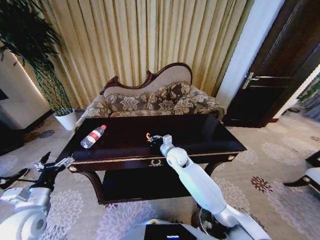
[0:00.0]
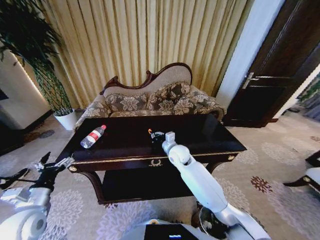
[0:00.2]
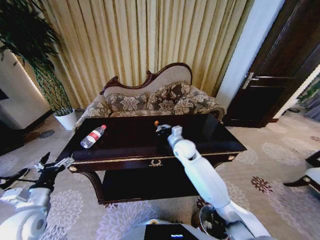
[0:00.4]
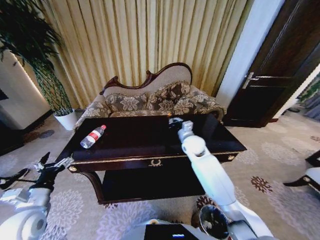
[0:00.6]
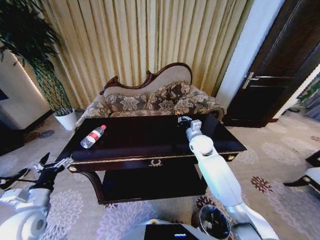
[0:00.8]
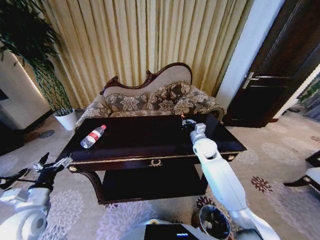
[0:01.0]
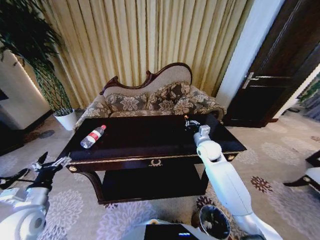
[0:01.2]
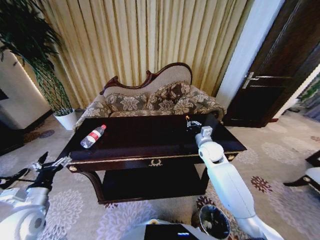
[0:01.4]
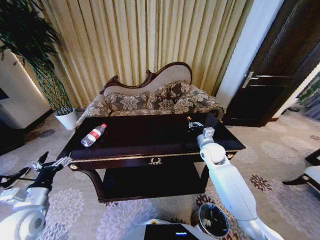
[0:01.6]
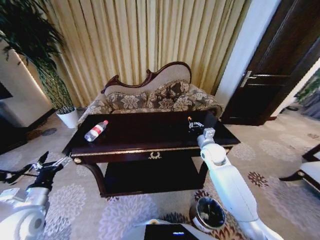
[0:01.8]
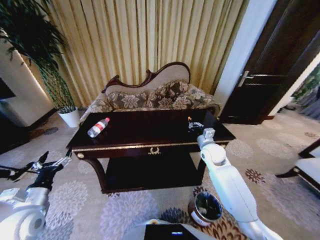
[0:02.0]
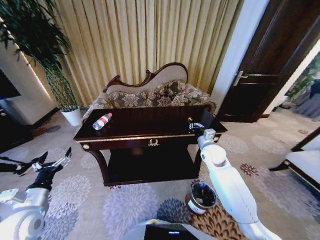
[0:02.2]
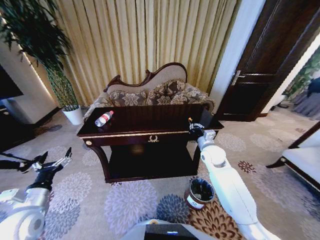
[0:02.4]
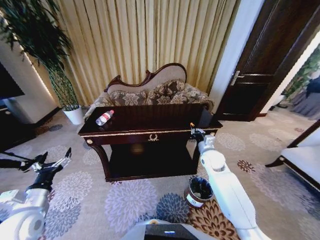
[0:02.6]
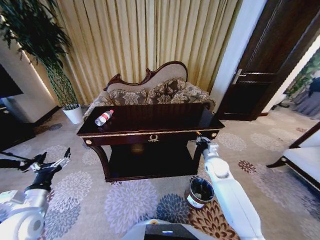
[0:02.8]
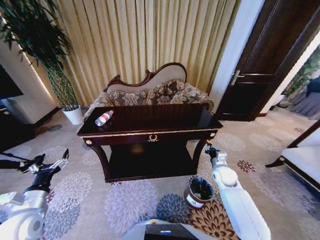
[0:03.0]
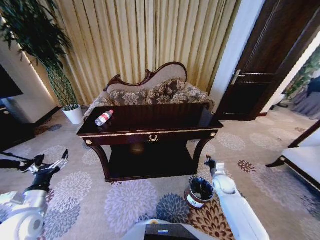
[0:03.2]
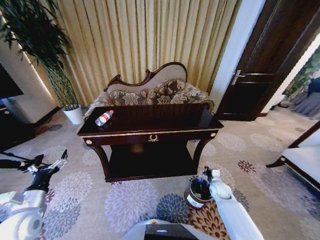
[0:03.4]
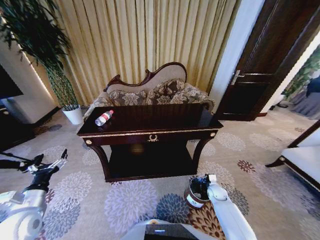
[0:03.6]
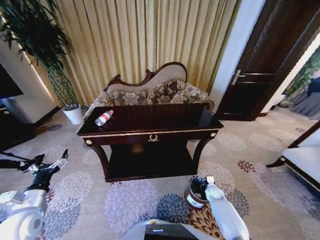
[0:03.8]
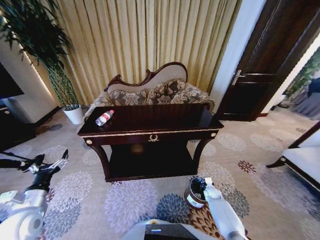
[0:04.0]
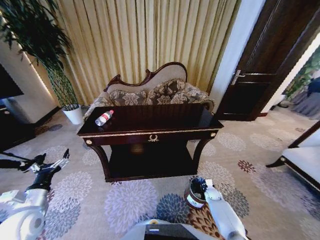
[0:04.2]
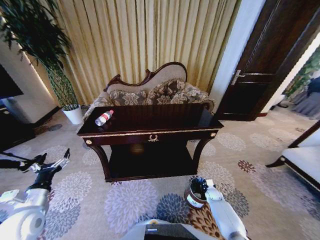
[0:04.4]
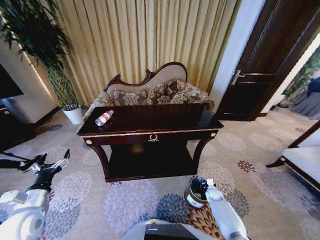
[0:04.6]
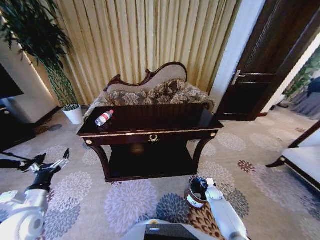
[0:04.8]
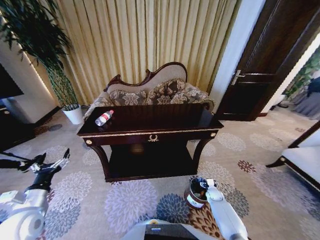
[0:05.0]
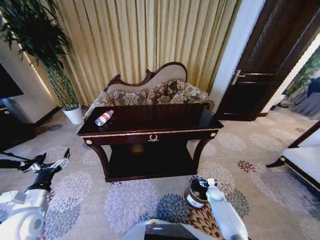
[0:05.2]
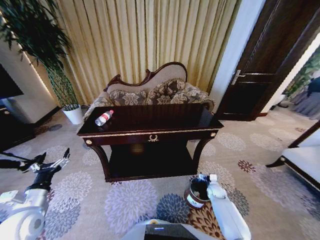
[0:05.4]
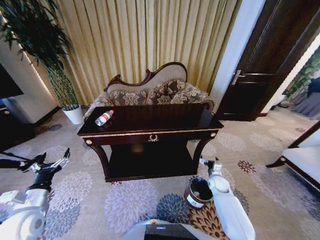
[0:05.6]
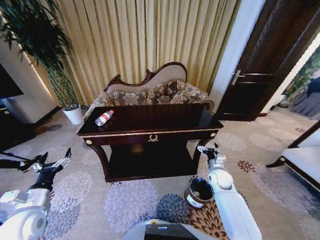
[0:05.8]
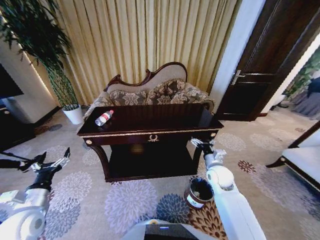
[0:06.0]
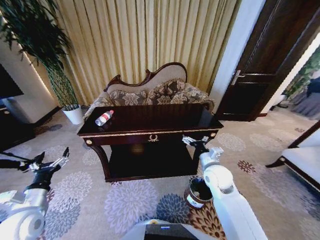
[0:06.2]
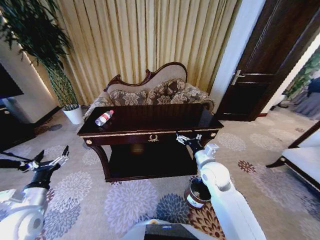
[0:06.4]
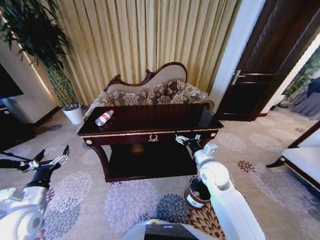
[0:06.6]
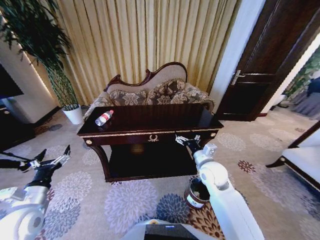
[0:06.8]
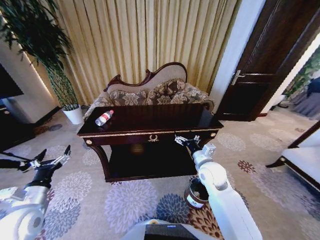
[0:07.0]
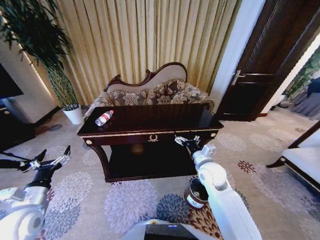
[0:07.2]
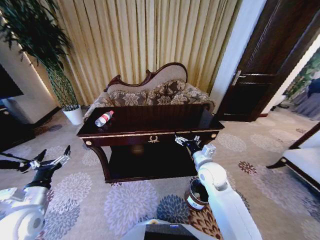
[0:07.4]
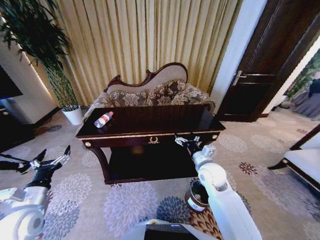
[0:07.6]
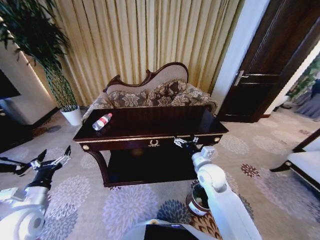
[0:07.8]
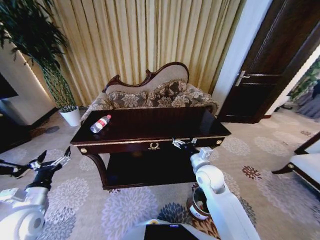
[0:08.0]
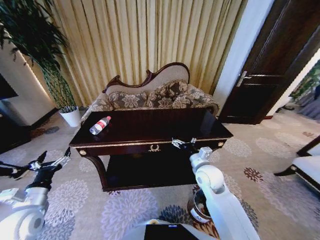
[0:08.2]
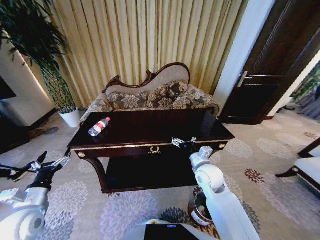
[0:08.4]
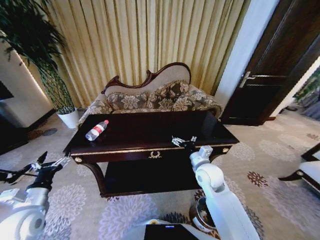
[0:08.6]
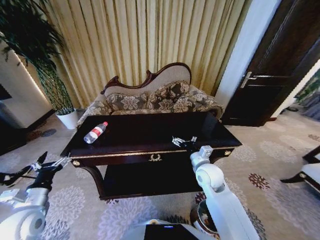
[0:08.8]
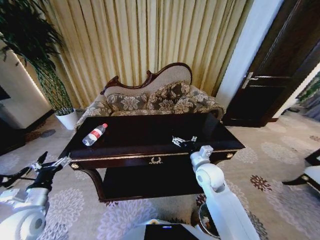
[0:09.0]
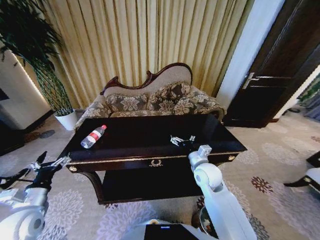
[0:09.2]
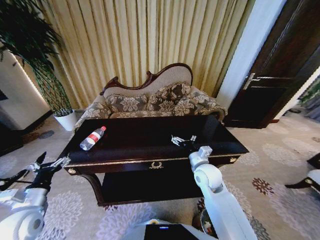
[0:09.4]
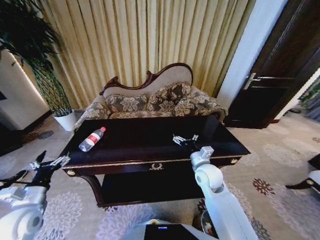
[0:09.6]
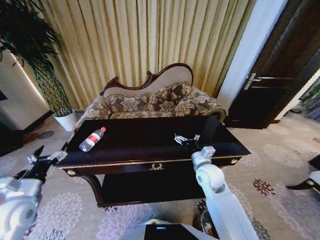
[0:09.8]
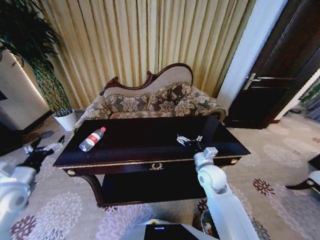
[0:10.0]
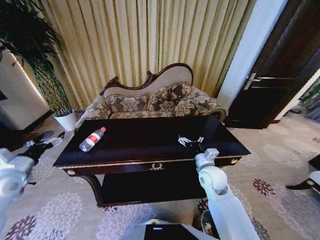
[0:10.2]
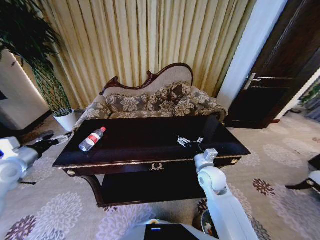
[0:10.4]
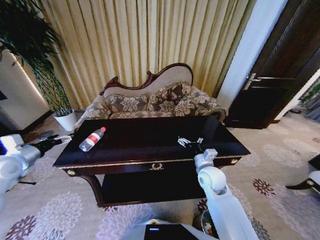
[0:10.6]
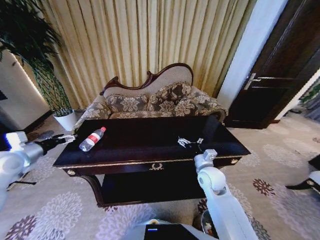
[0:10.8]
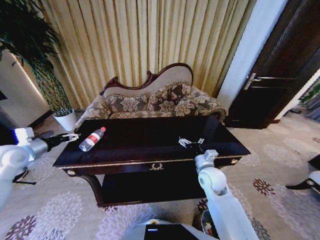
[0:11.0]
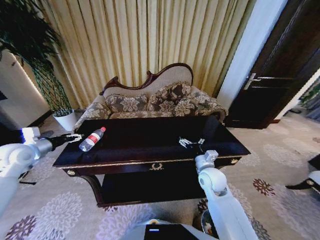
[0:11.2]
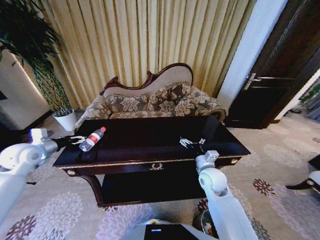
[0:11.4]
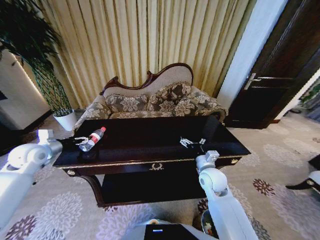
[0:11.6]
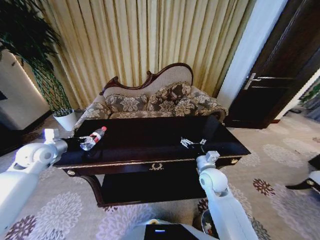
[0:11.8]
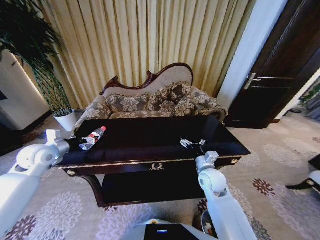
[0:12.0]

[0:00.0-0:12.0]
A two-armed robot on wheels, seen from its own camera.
Task of the whole recording: Move to the front of the table and place the trash on the table into the trash bin.
0:00.0 to 0:01.6: The right gripper shifts some 15 cm to the right.
0:01.6 to 0:03.0: The right gripper travels downward, to the right and backward by approximately 15 cm.
0:03.0 to 0:04.4: The right gripper goes approximately 25 cm downward.
0:04.4 to 0:06.0: The right gripper heads upward, covering about 30 cm, and opens.
0:06.0 to 0:07.6: The right gripper goes some 10 cm to the left and upward.
0:09.0 to 0:10.4: The left gripper goes about 20 cm forward, upward and to the left.
0:10.4 to 0:12.0: The left gripper is displaced forward and to the right by roughly 10 cm.

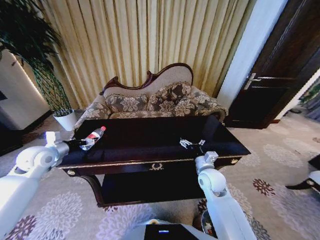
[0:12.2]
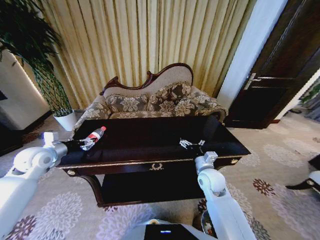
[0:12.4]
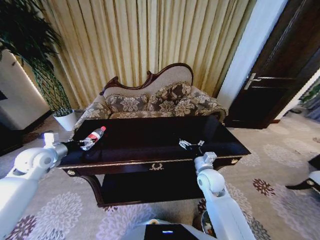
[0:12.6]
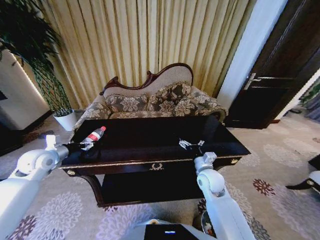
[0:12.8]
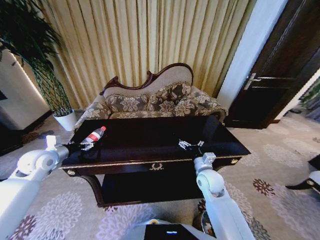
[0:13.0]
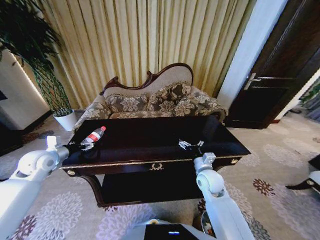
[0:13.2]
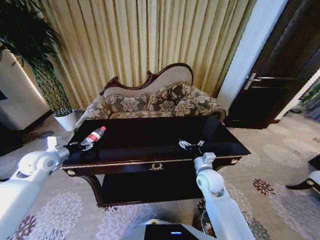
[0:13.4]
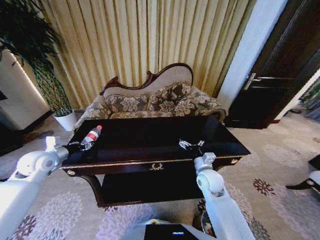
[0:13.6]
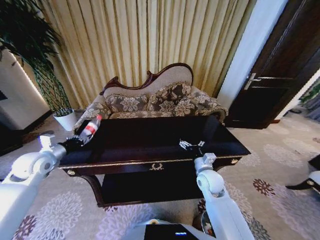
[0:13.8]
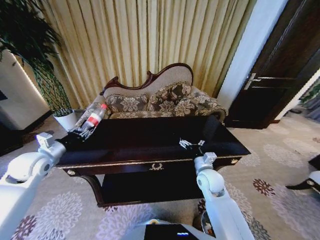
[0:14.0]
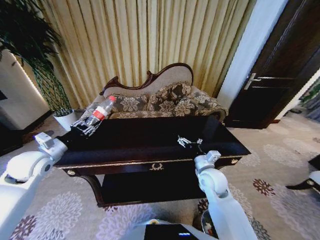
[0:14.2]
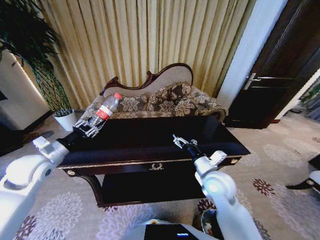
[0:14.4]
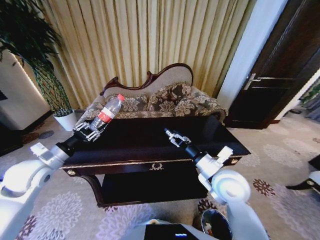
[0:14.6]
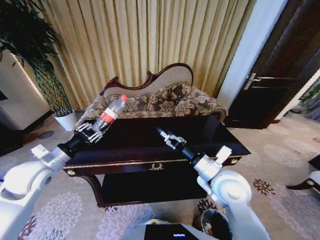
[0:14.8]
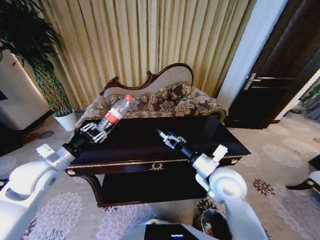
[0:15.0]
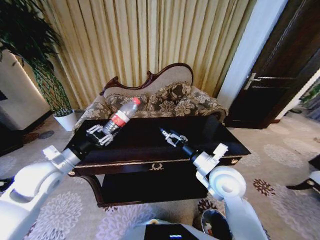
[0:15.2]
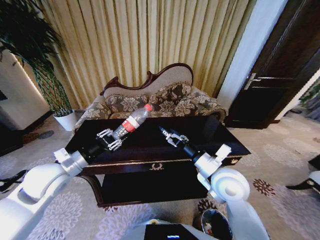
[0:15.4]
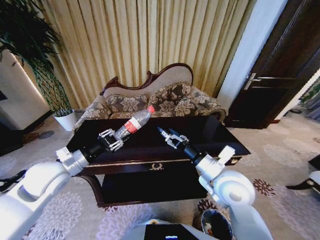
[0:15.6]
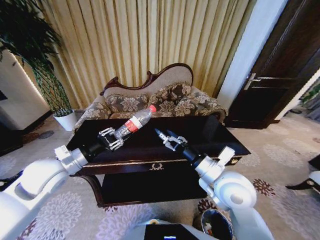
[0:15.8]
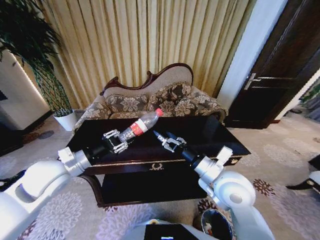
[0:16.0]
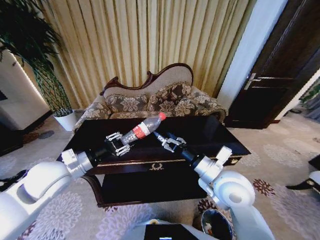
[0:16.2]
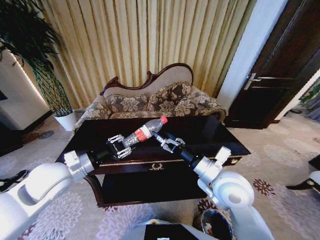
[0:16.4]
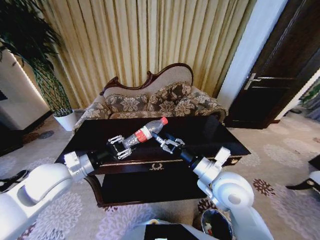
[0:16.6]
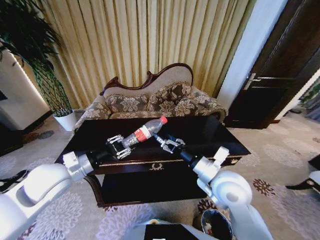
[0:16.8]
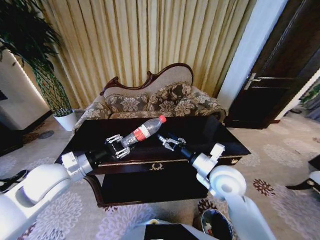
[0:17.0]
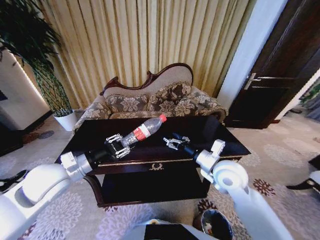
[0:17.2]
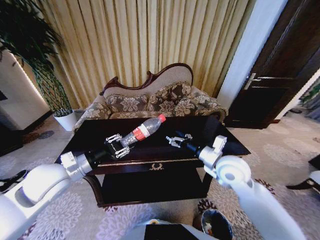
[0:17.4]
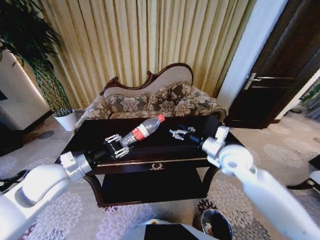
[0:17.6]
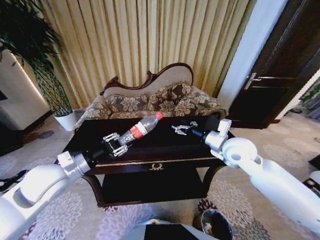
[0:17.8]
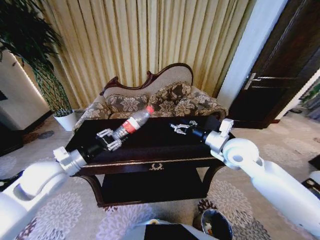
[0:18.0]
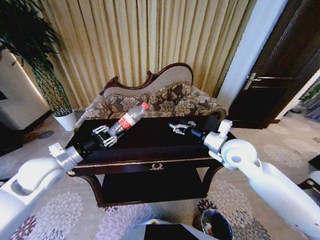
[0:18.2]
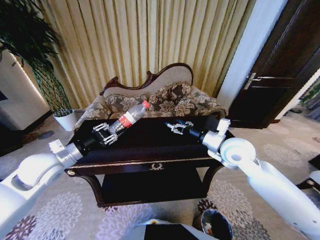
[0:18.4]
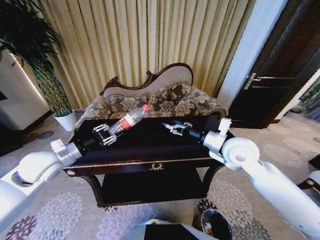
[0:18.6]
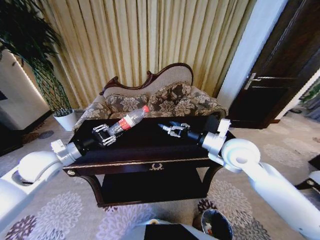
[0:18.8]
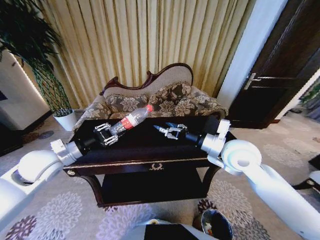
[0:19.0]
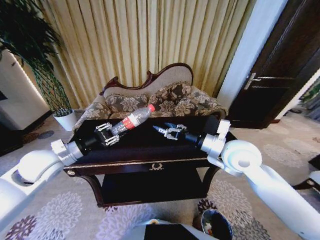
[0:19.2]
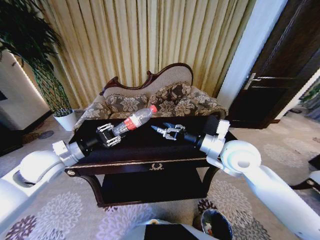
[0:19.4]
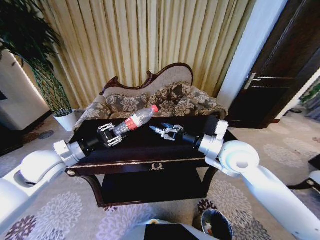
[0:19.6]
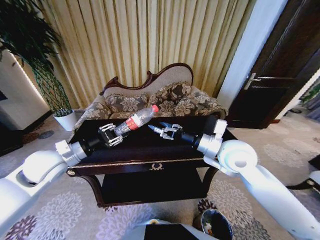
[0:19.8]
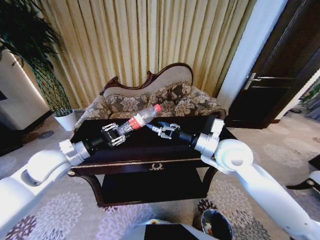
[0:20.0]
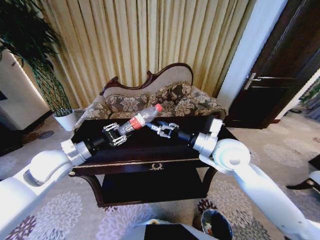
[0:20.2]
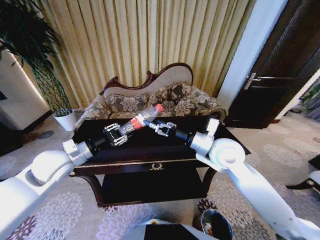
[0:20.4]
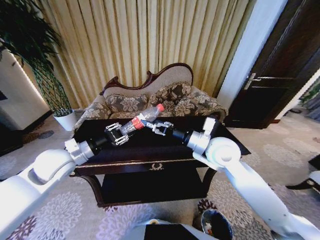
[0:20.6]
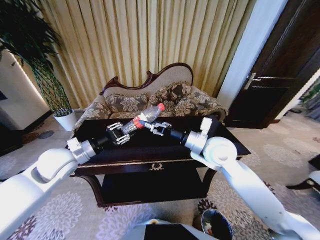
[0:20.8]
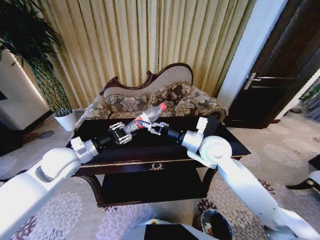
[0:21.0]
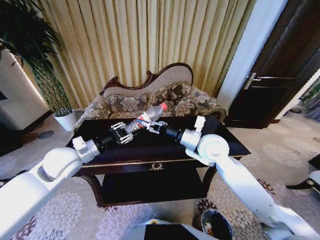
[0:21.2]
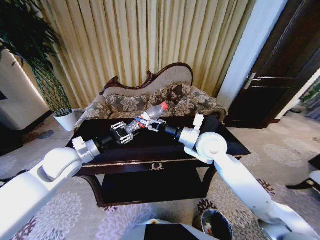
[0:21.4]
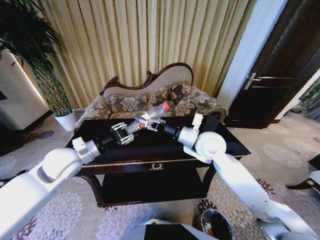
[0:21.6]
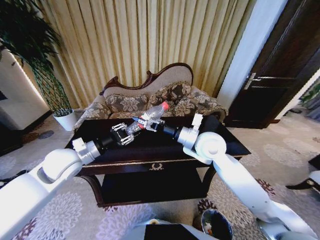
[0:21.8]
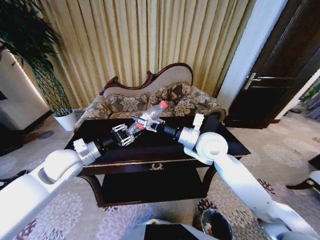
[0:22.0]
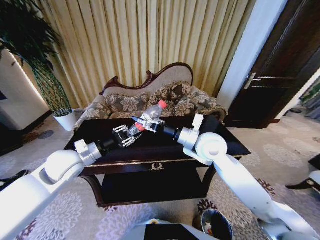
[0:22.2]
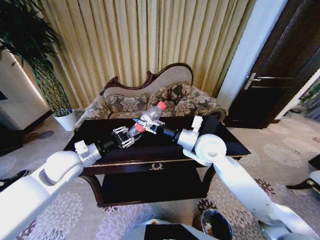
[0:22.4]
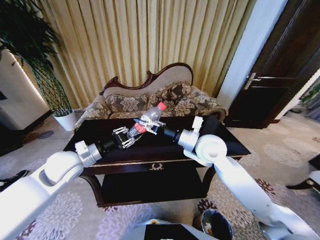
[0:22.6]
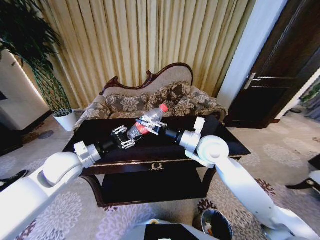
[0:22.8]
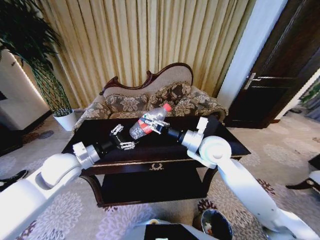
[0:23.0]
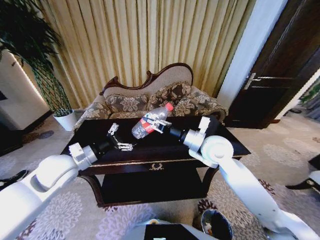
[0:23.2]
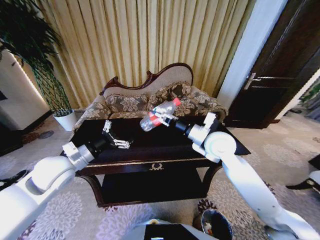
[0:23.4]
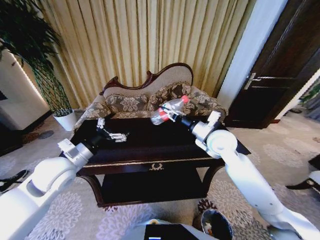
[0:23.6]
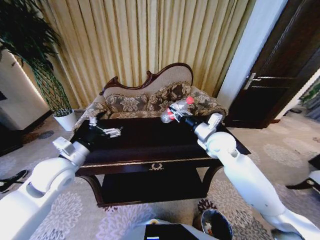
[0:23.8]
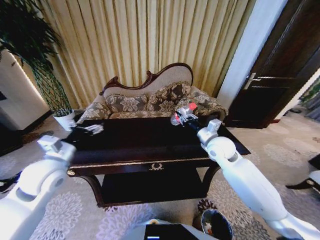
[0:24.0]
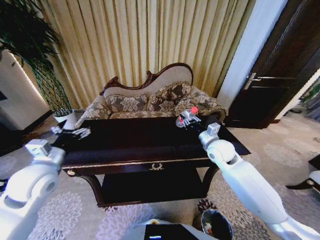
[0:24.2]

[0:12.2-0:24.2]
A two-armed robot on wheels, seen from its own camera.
Task of the whole recording: Move to the front of the table and place the trash on the table into the trash bin.
0:12.2 to 0:13.8: The left gripper closes up.
0:13.8 to 0:15.2: The right gripper shifts approximately 10 cm upward. The left gripper heads to the right and backward, covering some 10 cm.
0:15.2 to 0:16.6: The left gripper shifts by approximately 5 cm.
0:16.6 to 0:18.2: The left gripper changes place by some 5 cm. The right gripper heads forward and to the right, covering some 15 cm.
0:18.2 to 0:19.8: The right gripper ends up roughly 5 cm from where it was.
0:19.8 to 0:21.2: The right gripper shifts by some 5 cm.
0:21.2 to 0:22.6: The right gripper closes up.
0:22.6 to 0:24.2: The right gripper shifts about 15 cm to the right and downward; the left gripper heads to the left and backward, covering some 10 cm, and opens.
